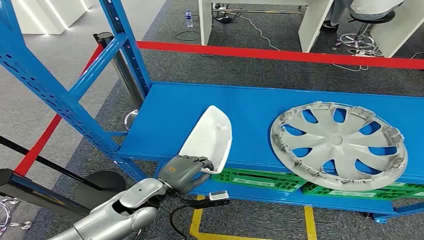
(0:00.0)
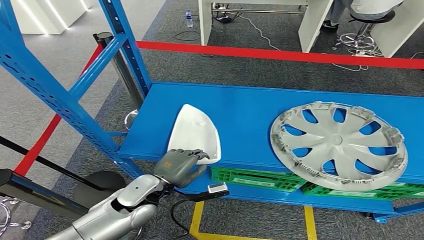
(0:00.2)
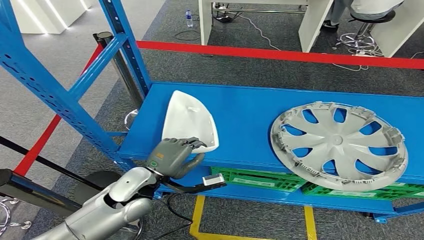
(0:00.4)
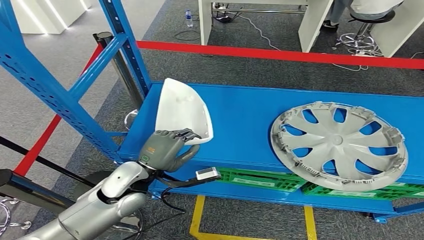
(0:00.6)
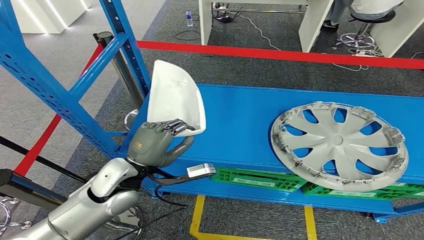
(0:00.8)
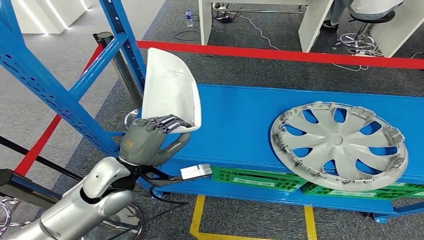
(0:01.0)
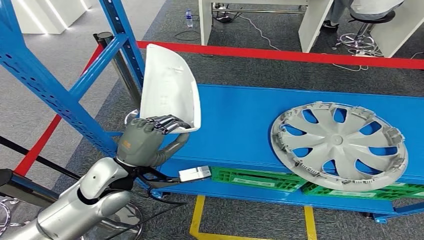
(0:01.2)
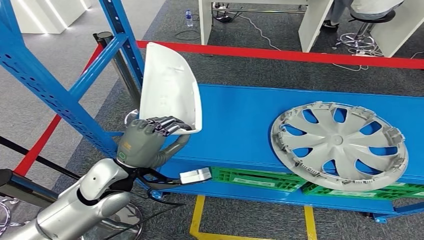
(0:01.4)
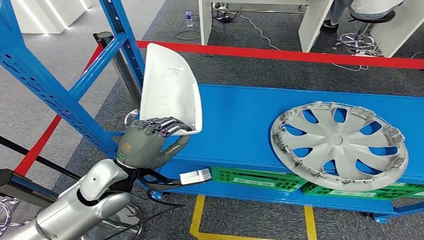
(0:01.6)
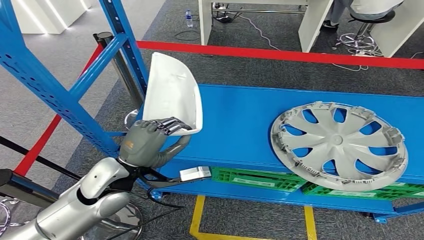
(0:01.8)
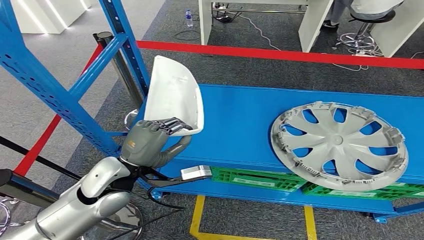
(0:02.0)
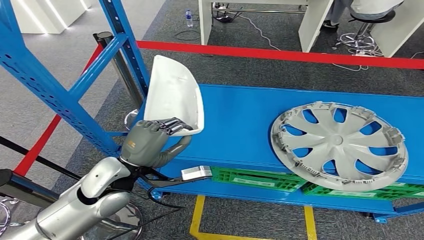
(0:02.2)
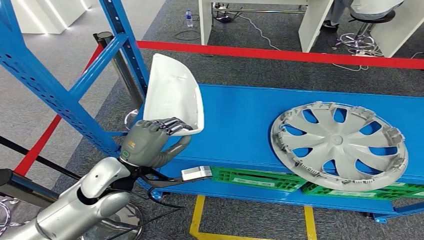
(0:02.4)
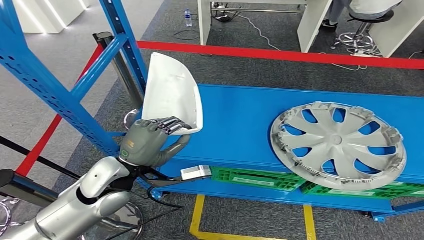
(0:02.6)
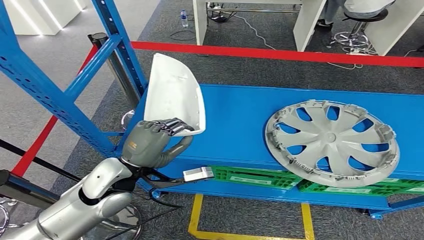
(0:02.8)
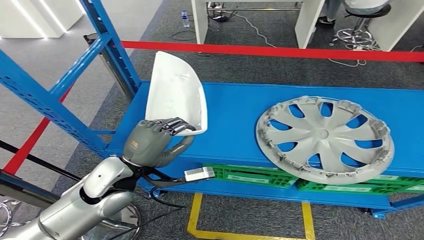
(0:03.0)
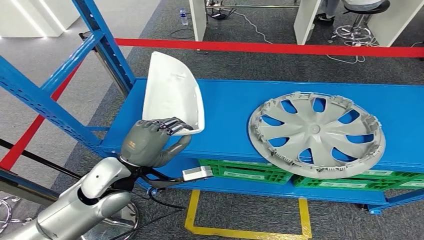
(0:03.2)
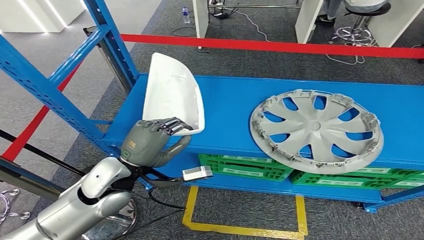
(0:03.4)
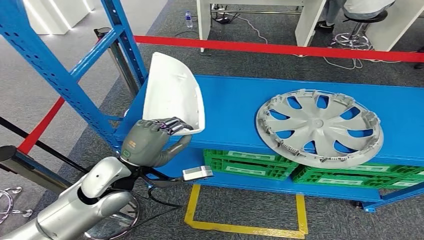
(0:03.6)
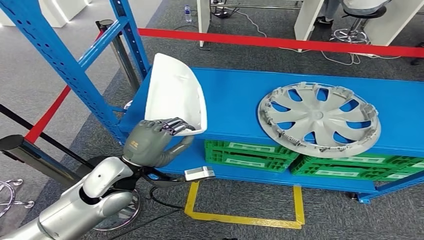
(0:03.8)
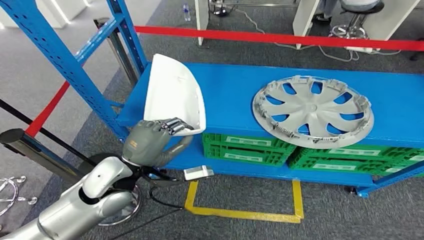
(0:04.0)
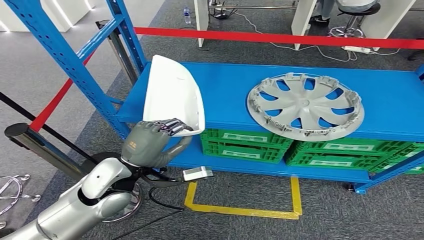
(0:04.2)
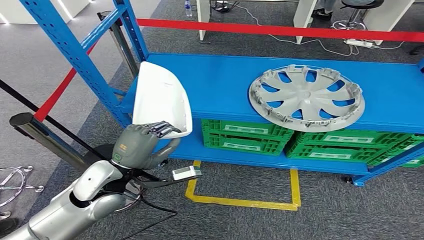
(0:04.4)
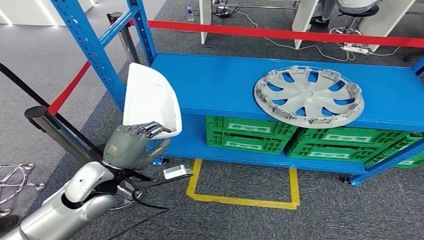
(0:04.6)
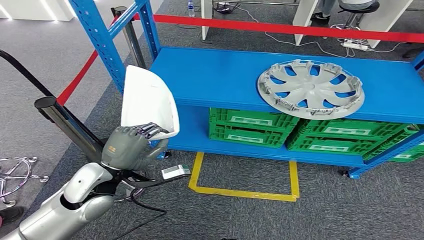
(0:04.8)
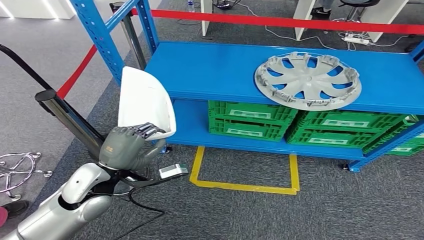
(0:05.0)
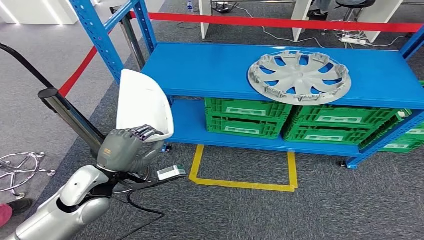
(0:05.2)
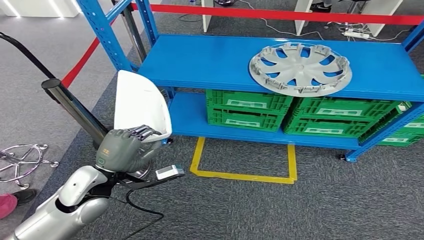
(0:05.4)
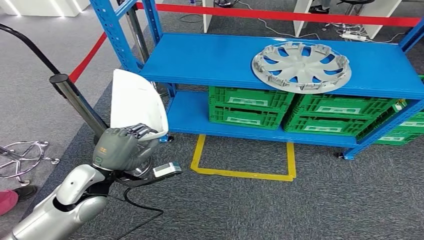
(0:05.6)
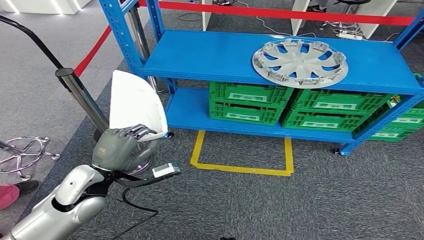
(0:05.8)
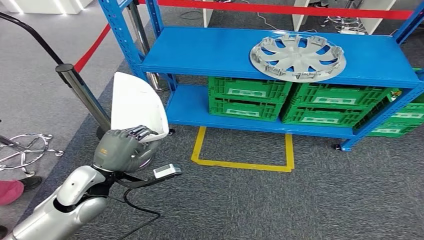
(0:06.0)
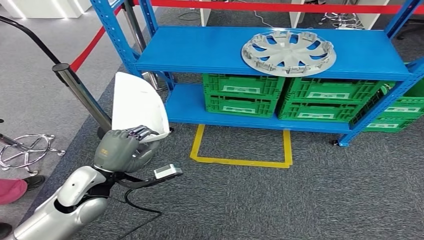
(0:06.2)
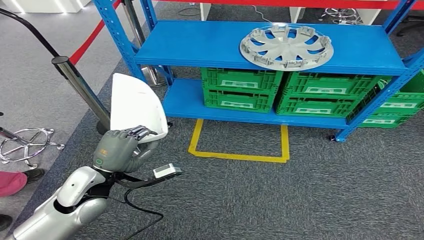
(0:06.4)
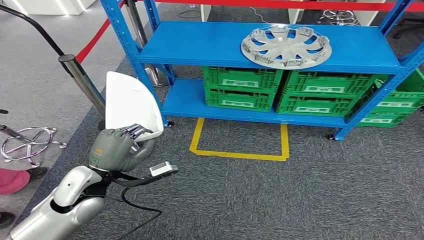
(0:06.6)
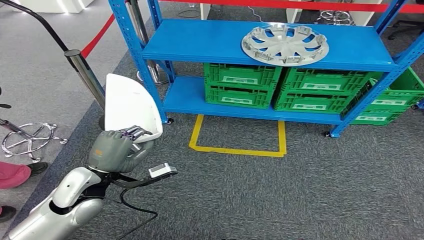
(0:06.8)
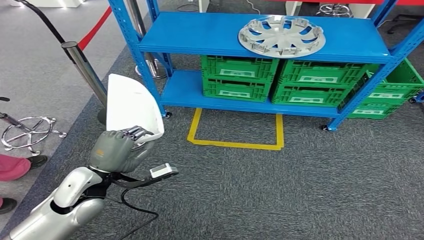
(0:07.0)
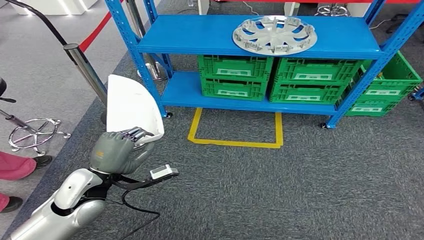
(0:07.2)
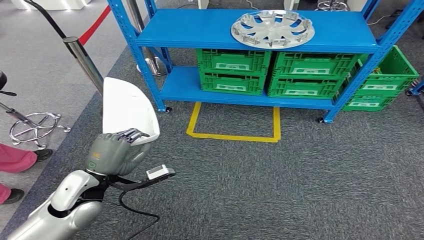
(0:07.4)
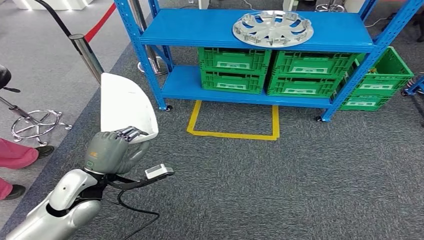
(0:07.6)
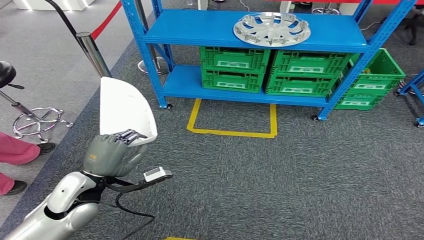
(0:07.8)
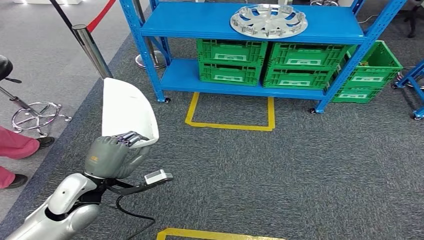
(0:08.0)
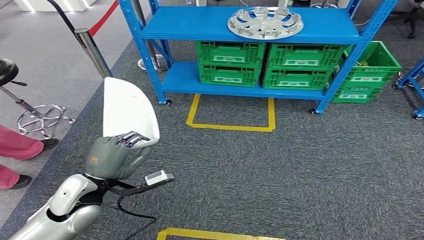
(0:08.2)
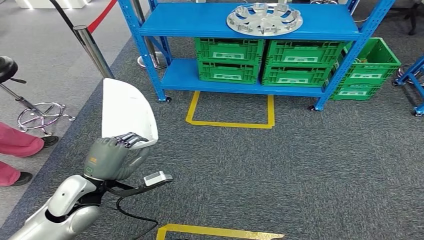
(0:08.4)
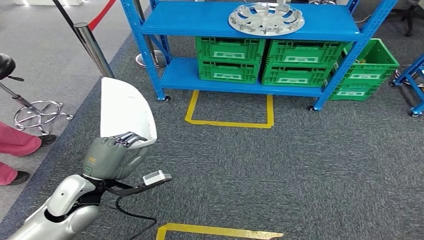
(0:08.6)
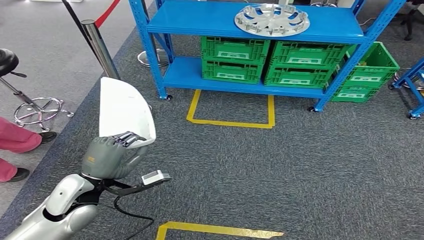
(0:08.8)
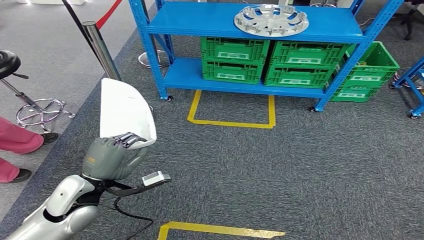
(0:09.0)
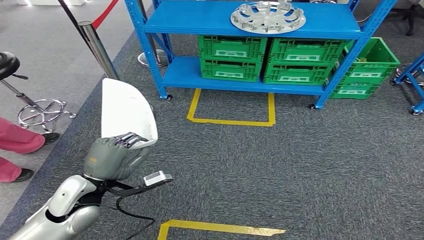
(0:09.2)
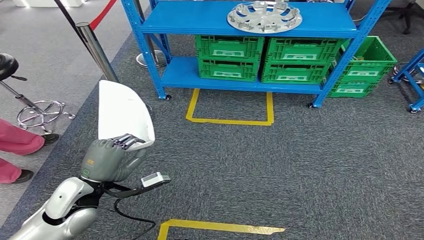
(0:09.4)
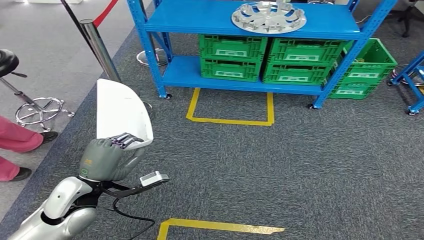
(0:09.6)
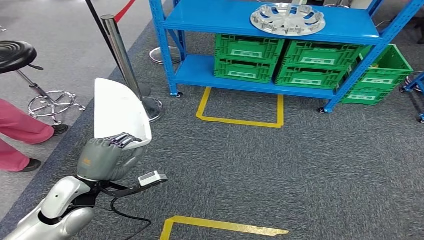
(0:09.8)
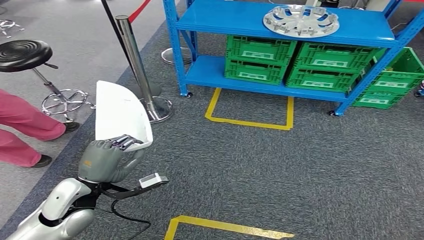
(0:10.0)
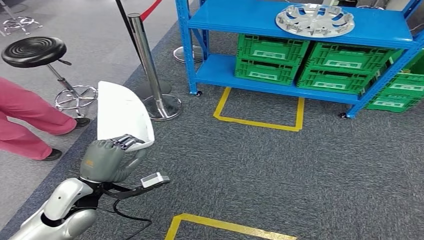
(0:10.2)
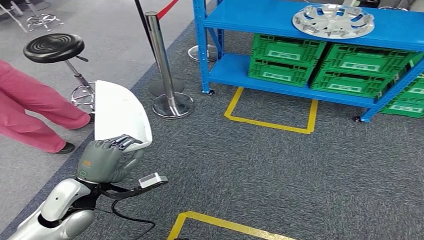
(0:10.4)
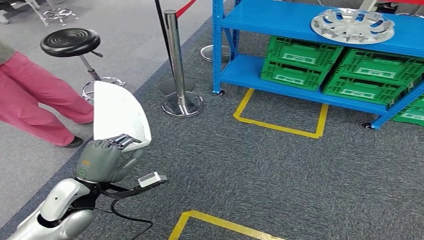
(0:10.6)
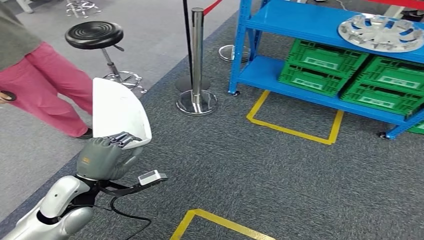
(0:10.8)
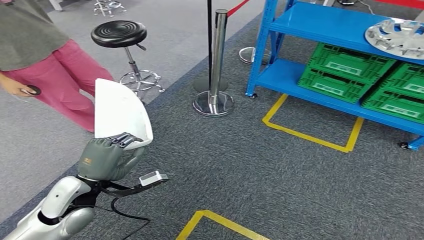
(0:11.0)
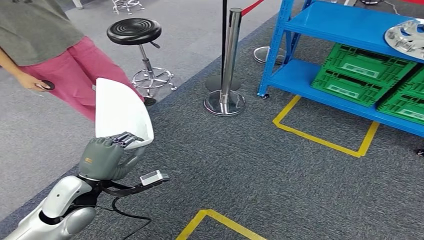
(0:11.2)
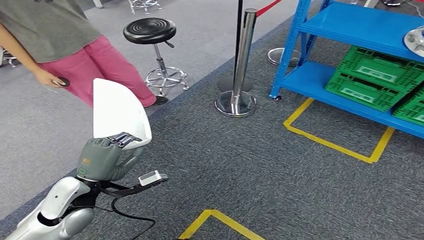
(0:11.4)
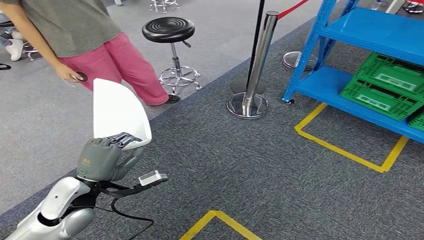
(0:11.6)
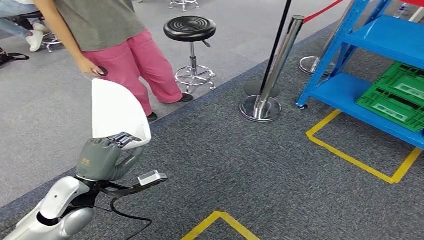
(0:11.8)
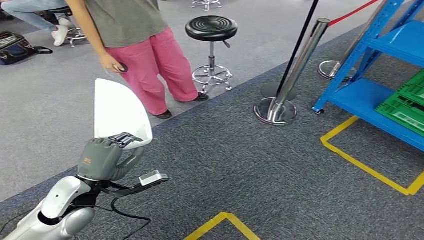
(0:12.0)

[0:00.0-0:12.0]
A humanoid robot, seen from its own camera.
Step, 0:00.0 to 0:02.2: Pick up the small component from the shelf.

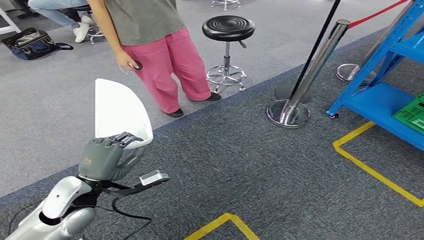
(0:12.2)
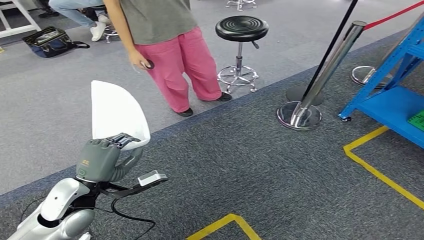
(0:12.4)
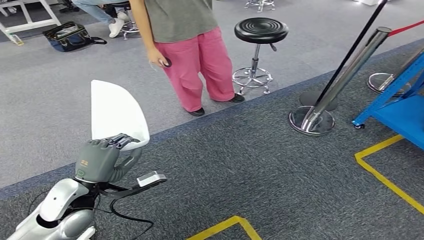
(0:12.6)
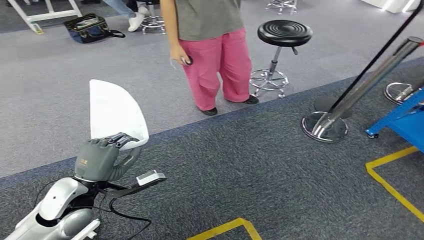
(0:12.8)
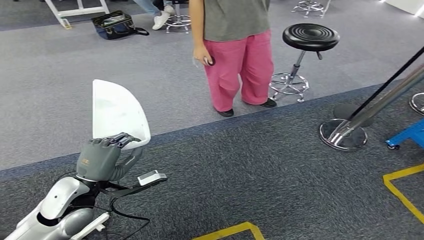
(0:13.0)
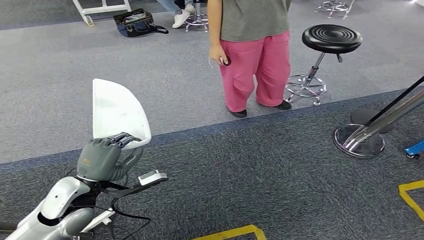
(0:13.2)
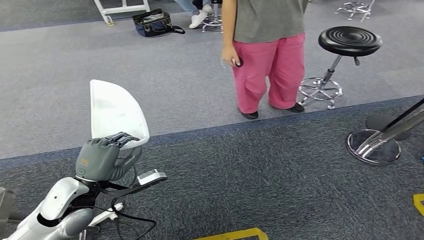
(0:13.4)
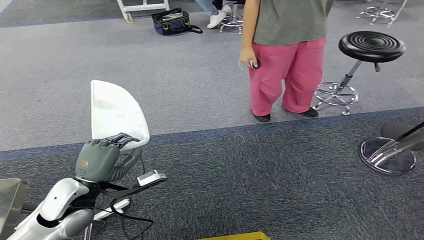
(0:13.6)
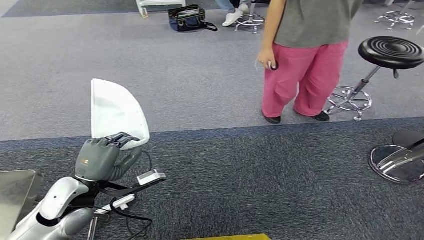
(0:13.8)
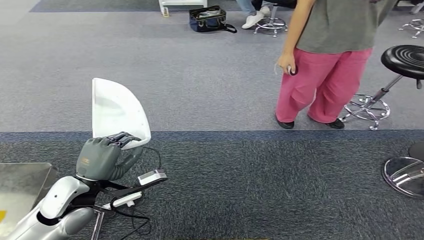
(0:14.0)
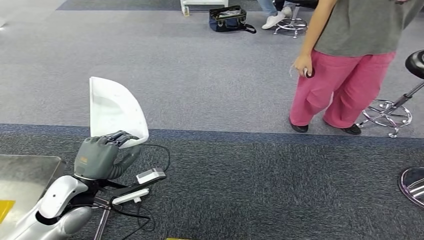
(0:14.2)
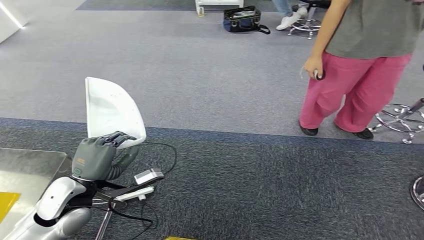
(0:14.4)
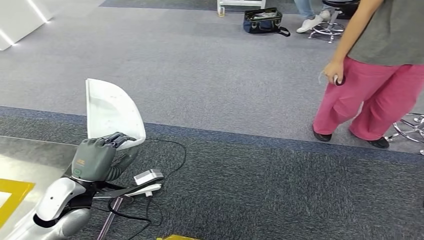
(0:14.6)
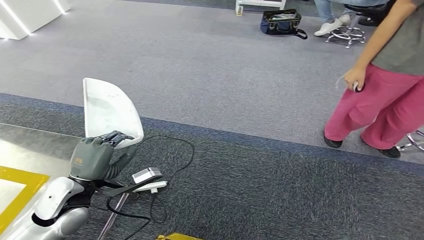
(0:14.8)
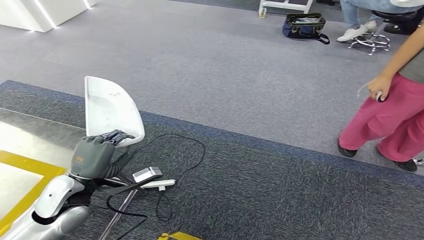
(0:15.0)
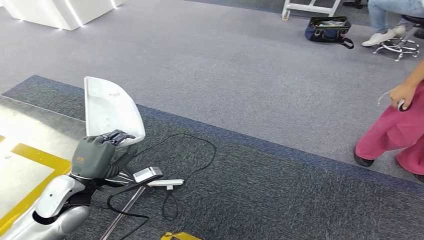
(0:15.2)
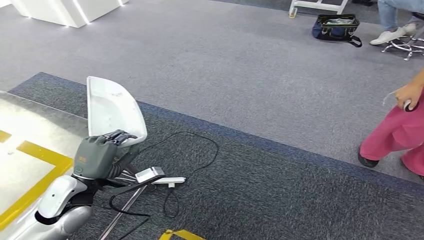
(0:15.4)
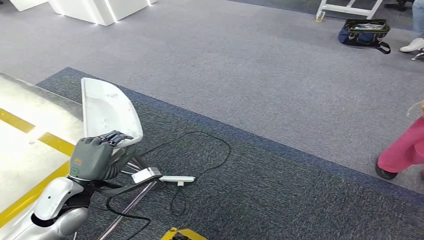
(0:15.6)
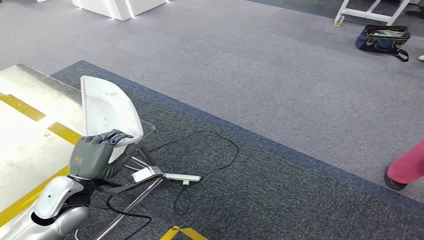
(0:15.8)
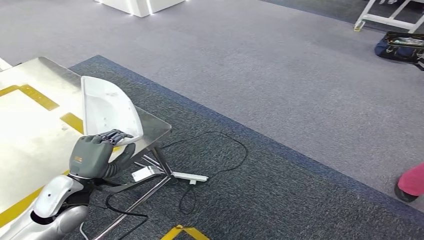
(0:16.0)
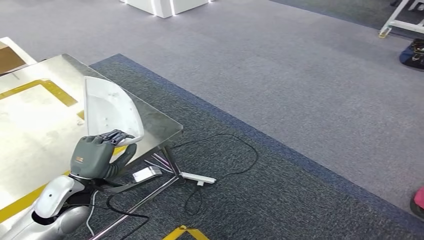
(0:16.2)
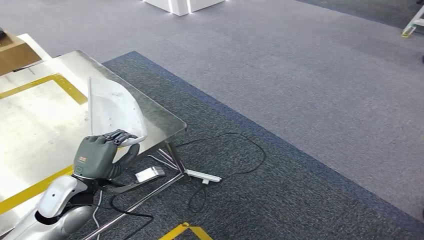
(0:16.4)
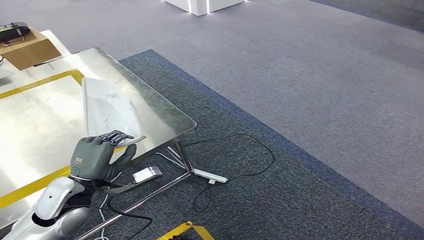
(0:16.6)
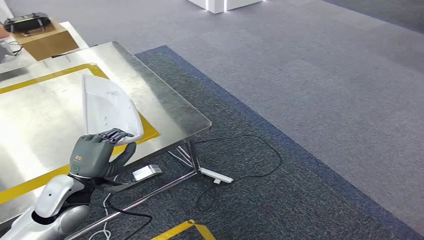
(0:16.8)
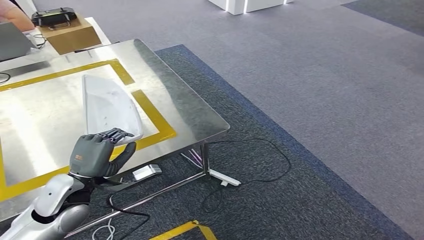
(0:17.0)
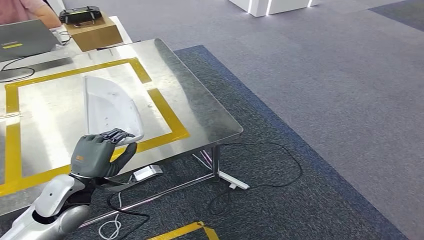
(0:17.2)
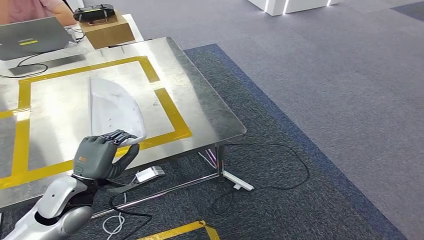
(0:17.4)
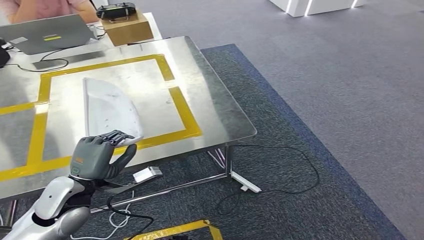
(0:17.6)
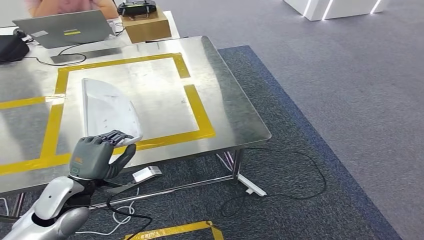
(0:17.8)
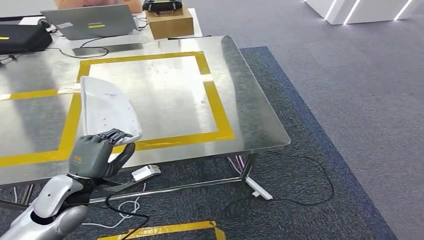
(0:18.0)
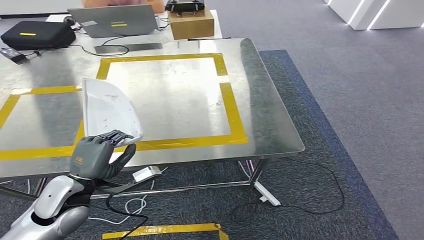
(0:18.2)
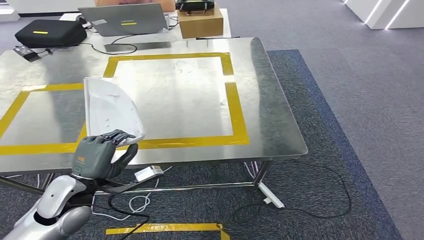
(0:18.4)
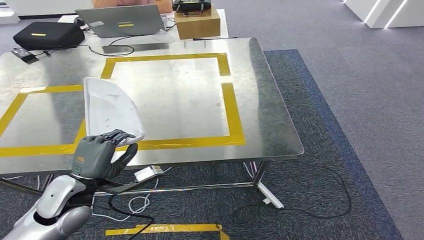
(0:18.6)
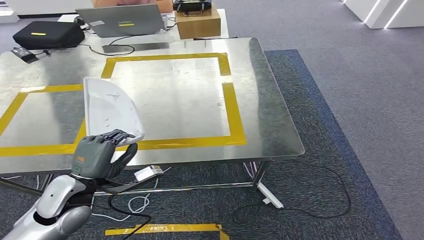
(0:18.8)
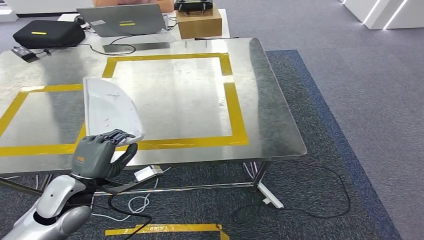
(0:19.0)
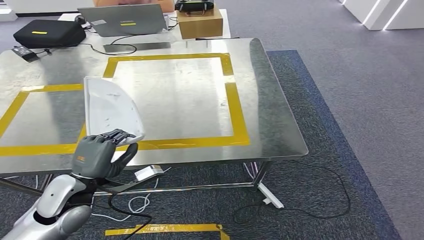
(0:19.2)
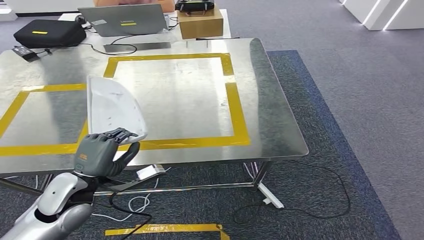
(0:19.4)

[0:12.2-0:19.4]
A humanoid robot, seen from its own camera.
Step, 0:12.2 to 0:19.0: Move the small component to the workbench.
